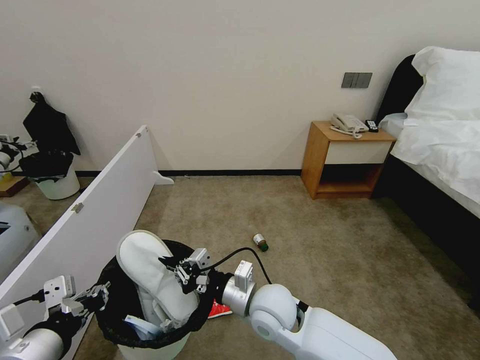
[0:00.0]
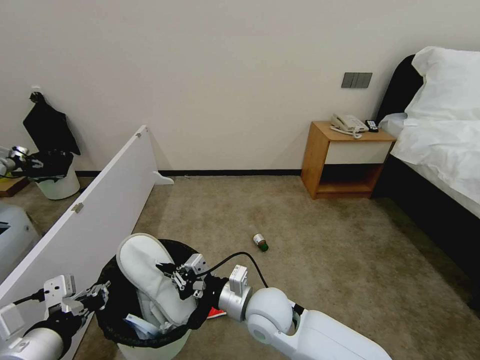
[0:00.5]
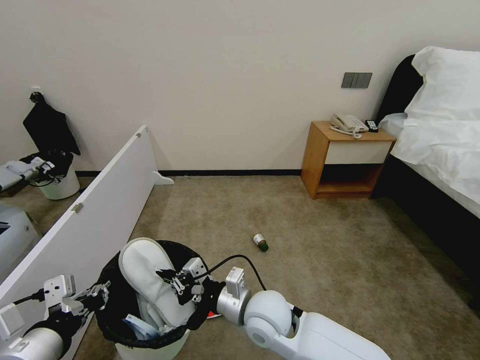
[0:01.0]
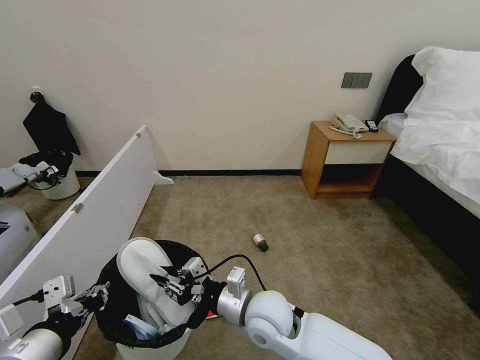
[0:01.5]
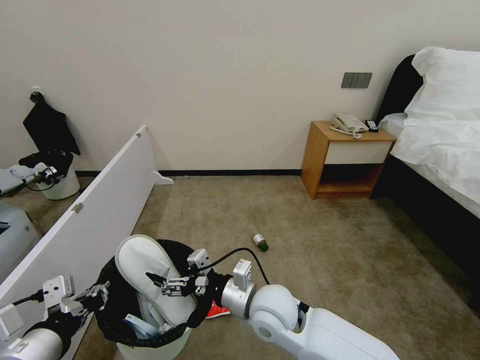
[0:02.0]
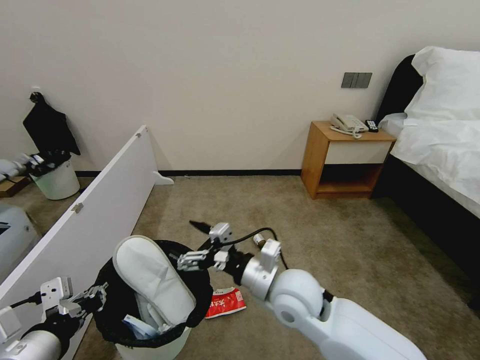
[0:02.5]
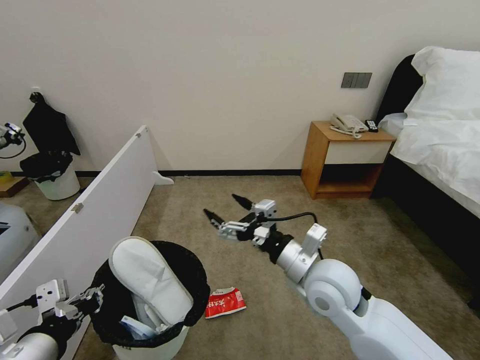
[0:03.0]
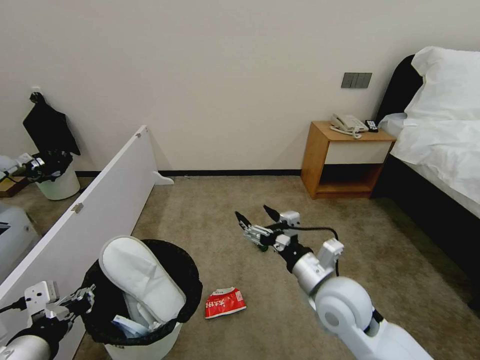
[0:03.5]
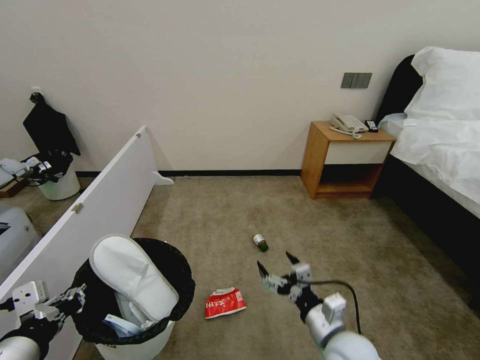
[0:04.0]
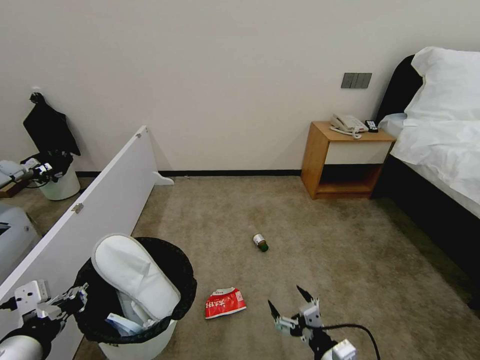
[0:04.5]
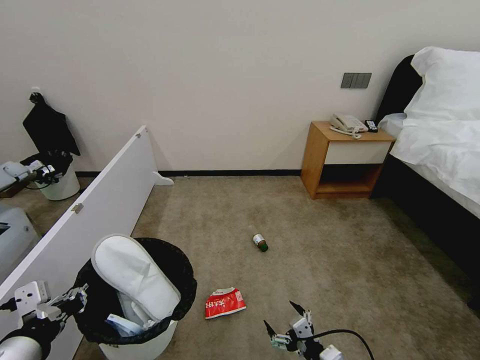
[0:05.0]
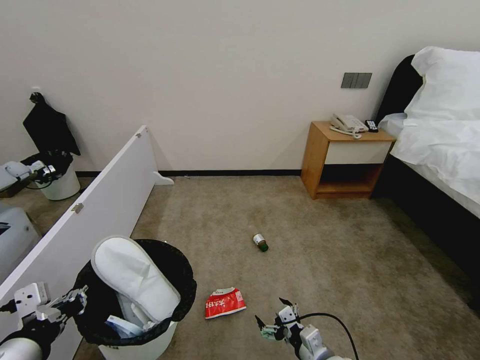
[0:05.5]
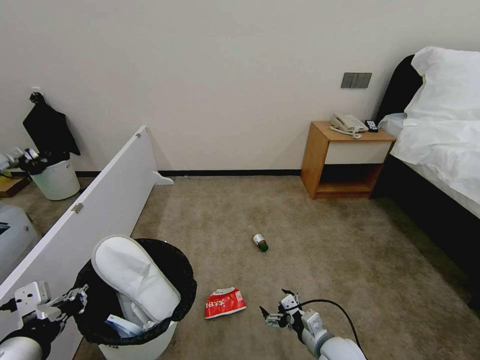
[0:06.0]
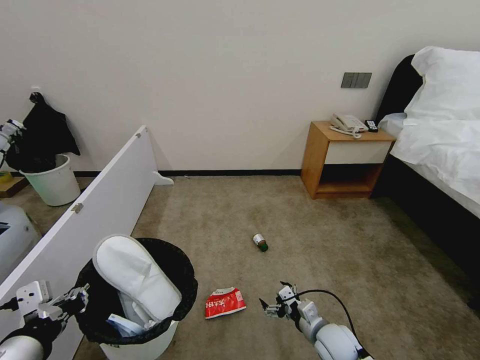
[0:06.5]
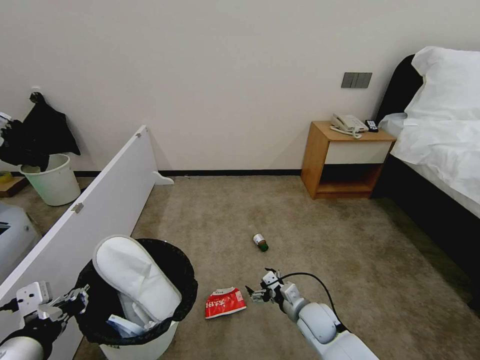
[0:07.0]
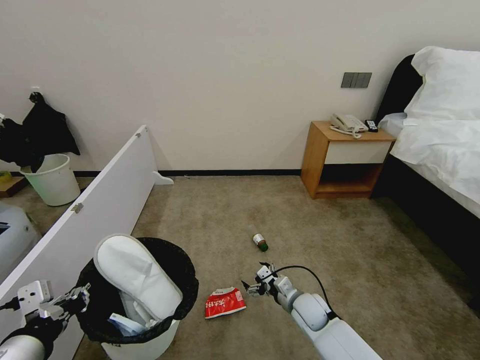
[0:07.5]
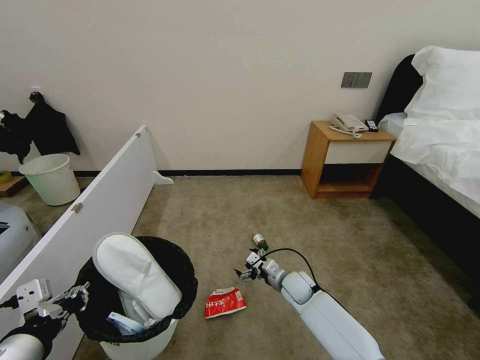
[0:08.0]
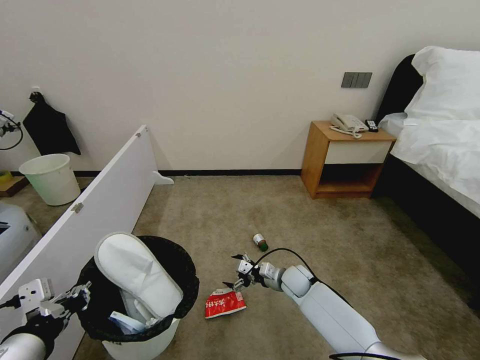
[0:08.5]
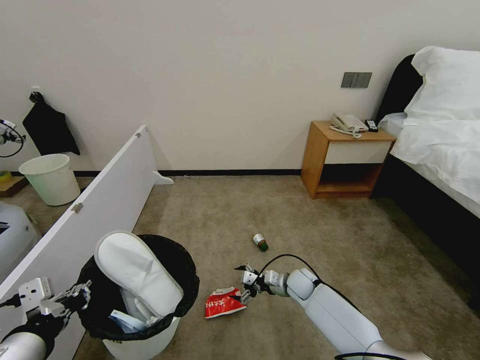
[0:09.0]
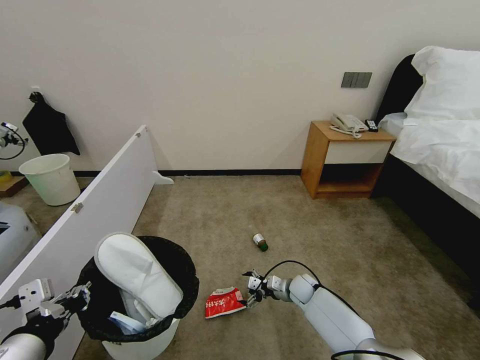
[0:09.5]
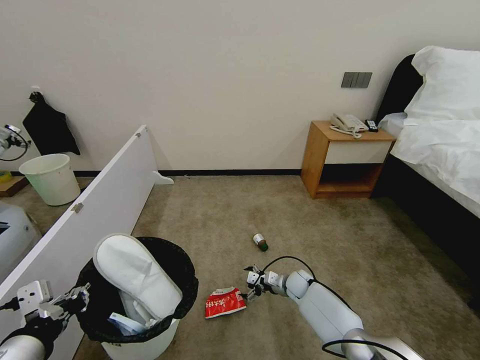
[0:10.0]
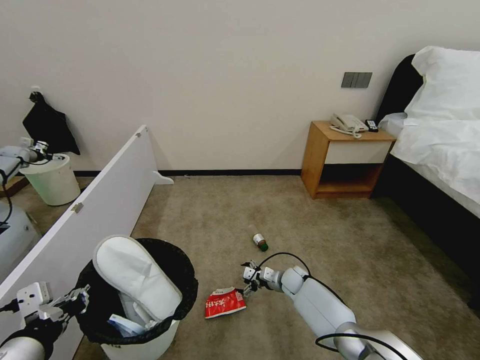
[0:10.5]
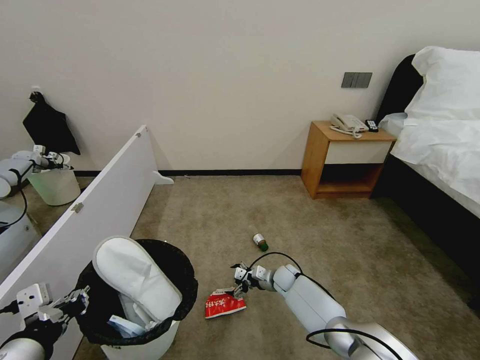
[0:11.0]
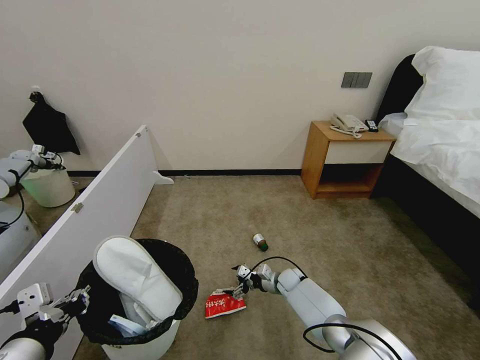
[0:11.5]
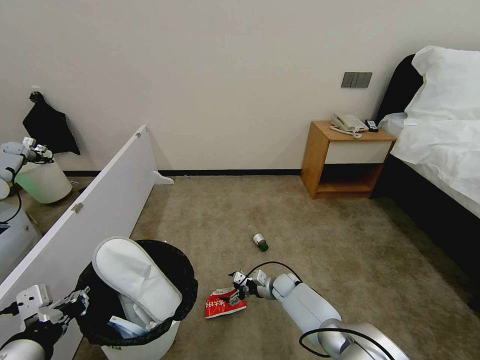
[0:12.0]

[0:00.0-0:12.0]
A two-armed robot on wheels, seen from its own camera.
Task of the whole recording: Pick up the trash bin, then pick up the garbage from the floor and place it into the trash bin.
0:00.0 to 0:02.0: The right gripper opens its fingers.
0:02.0 to 0:04.0: The right gripper is displaced to the right by some 15 cm.
0:04.0 to 0:06.0: The right gripper is displaced downward by about 10 cm.
0:06.0 to 0:08.0: The right gripper shifts some 15 cm forward.
0:08.0 to 0:10.0: The right gripper moves downward, about 5 cm.
0:10.0 to 0:12.0: The grippers move only a little.

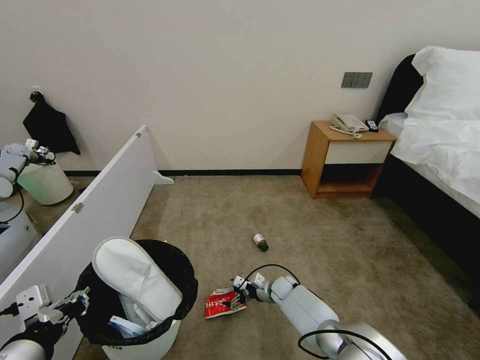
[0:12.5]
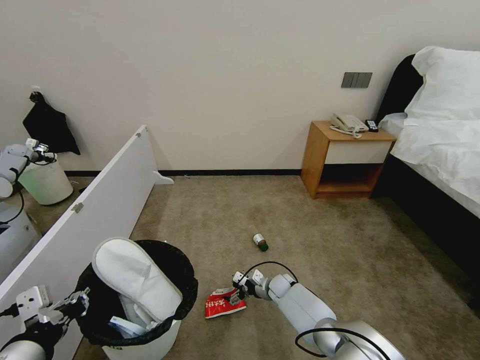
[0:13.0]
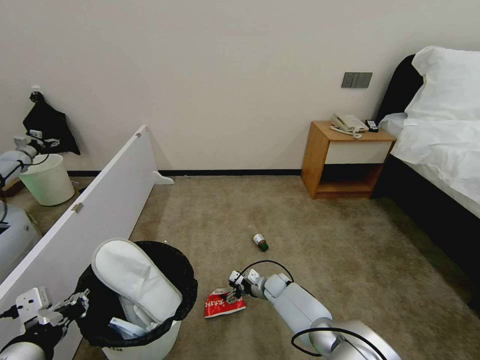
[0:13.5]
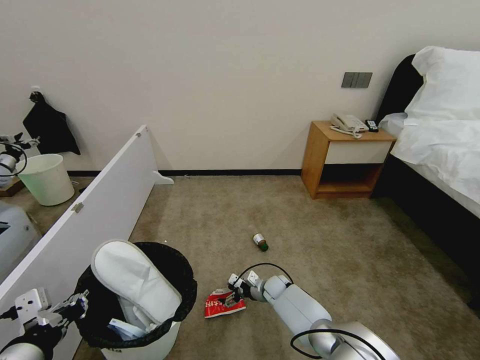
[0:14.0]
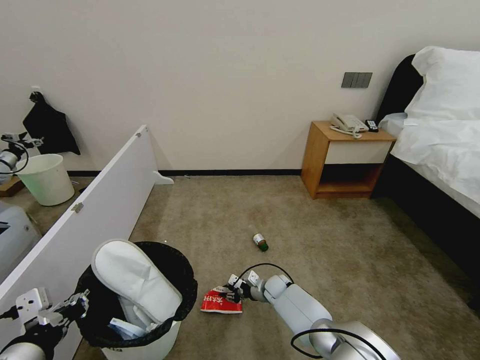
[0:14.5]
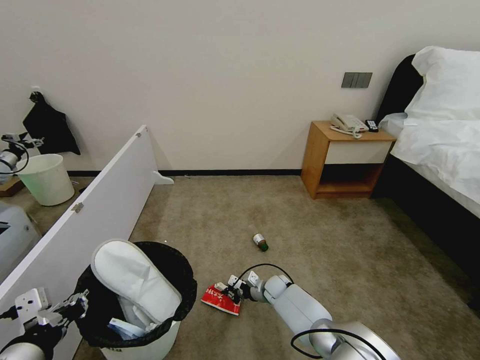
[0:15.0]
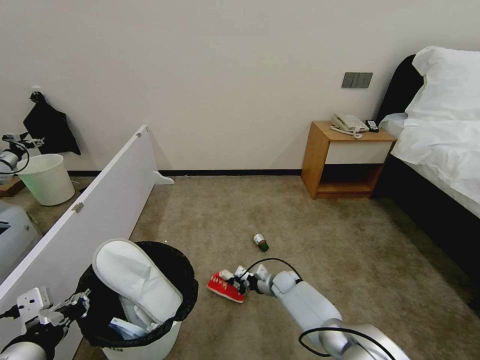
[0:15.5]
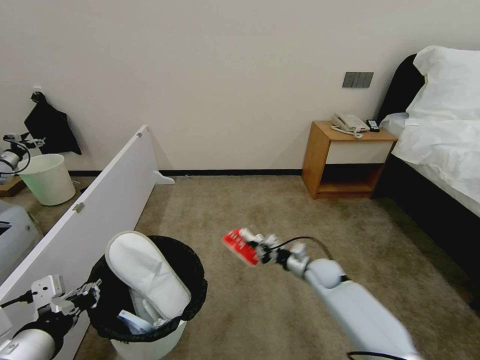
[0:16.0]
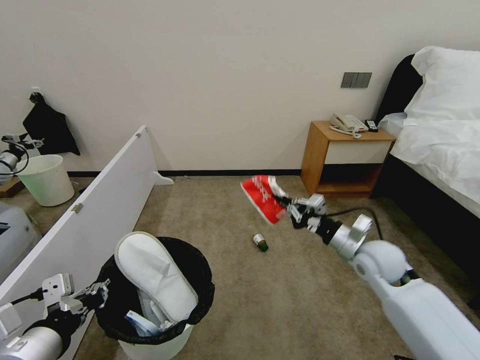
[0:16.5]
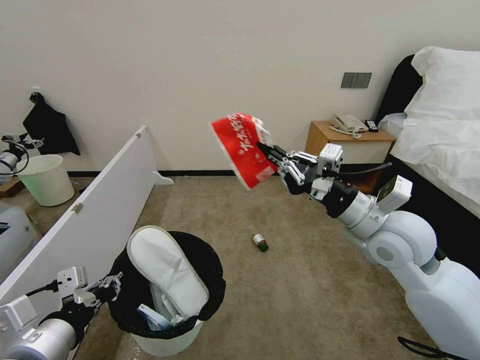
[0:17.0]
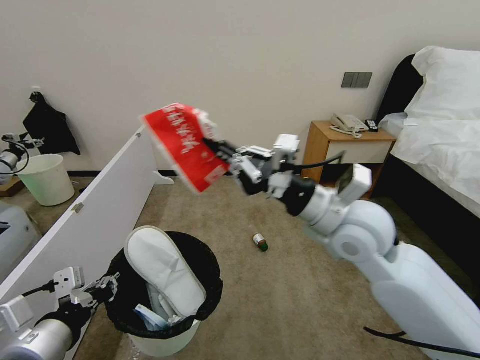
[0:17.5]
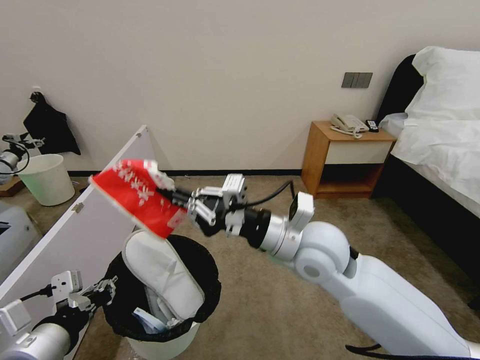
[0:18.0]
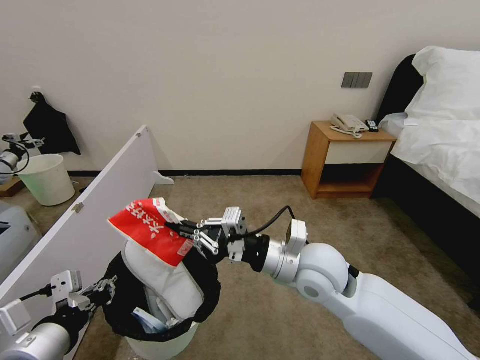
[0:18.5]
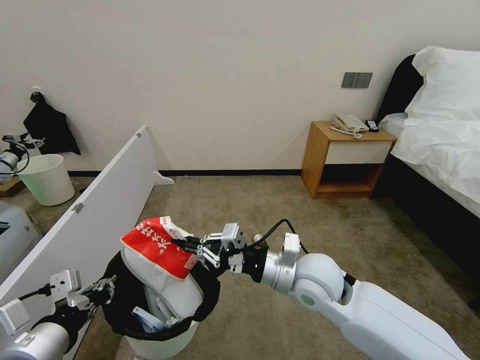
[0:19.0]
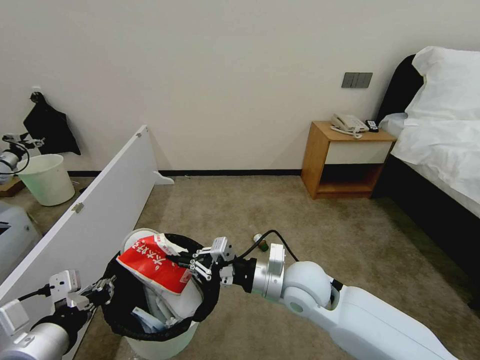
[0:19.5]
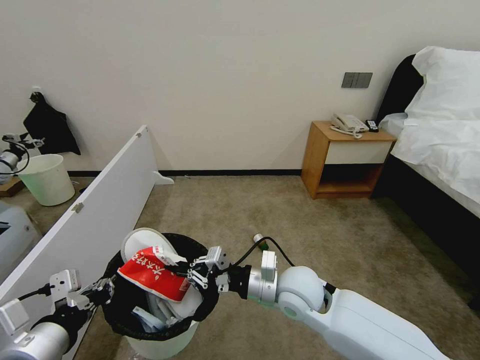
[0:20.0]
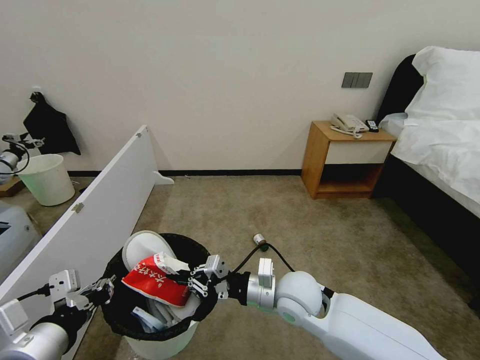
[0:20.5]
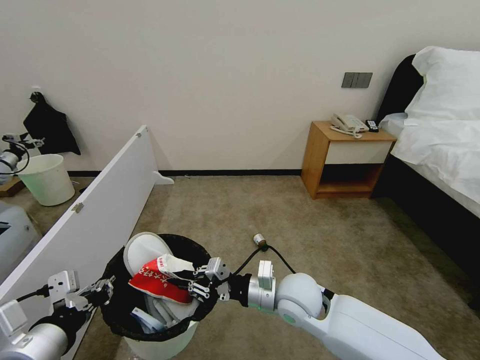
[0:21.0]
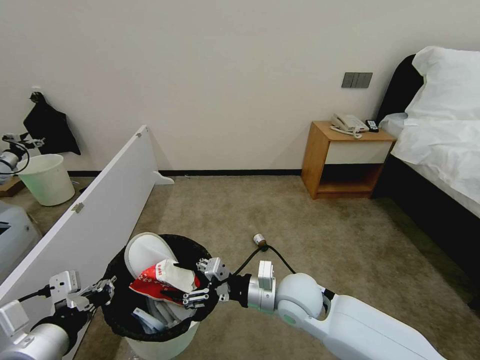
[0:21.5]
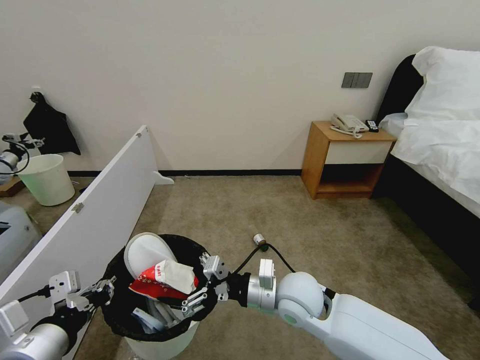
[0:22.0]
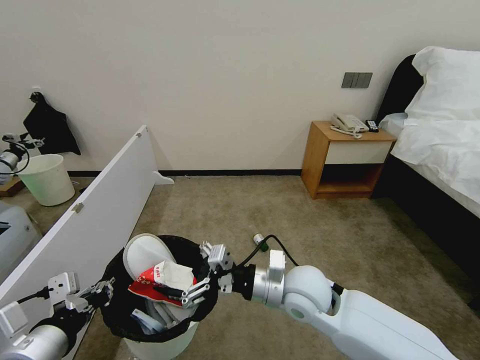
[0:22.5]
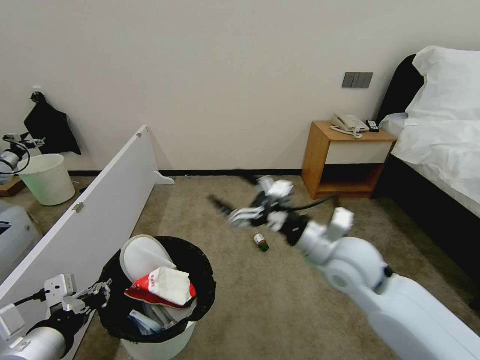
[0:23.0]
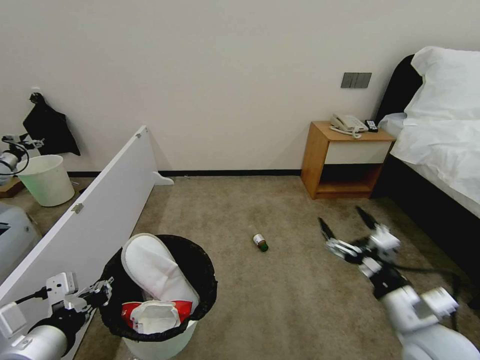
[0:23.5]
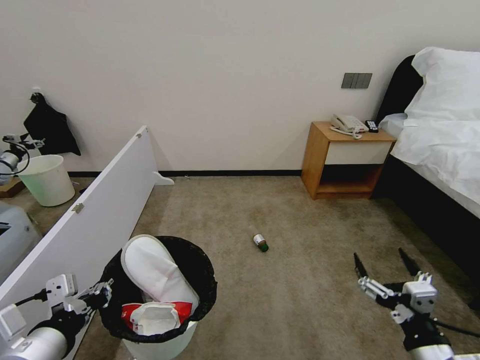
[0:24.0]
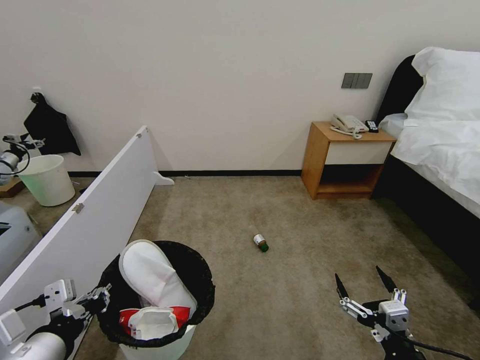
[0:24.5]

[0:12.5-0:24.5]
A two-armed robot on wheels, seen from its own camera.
Task of the whole recording: Pick up the trash bin, then pick up the garbage from the floor and place it into the trash bin.
0:12.5 to 0:14.5: The right gripper closes its fingers.
0:14.5 to 0:16.5: The right gripper moves upward and to the right, approximately 35 cm, and closes its fingers.
0:16.5 to 0:18.5: The right gripper travels to the left, upward and backward by about 20 cm.
0:18.5 to 0:20.5: The right gripper moves downward, some 10 cm.
0:20.5 to 0:22.5: The right gripper opens.
0:22.5 to 0:24.5: The right gripper is displaced backward, to the right and downward by approximately 30 cm.

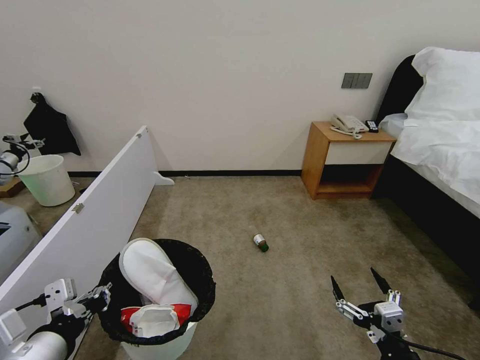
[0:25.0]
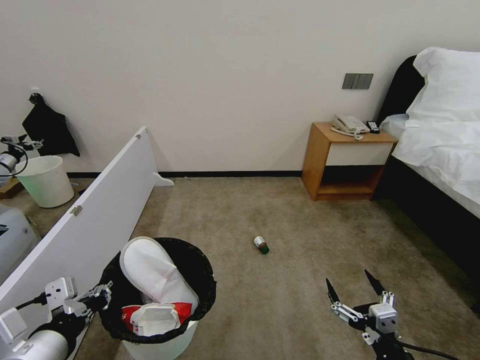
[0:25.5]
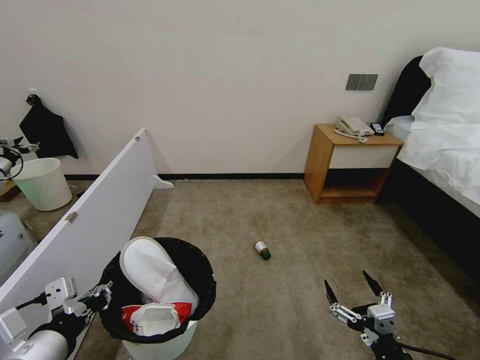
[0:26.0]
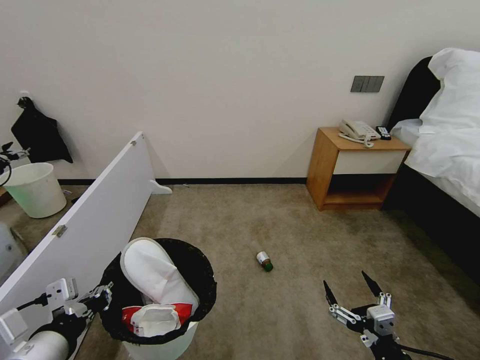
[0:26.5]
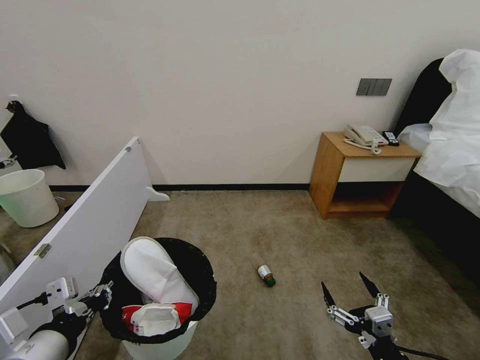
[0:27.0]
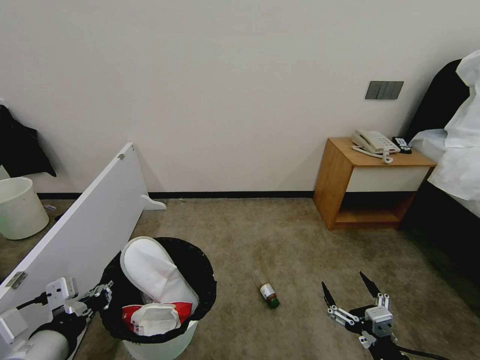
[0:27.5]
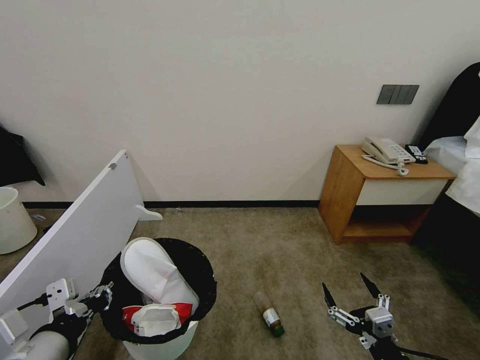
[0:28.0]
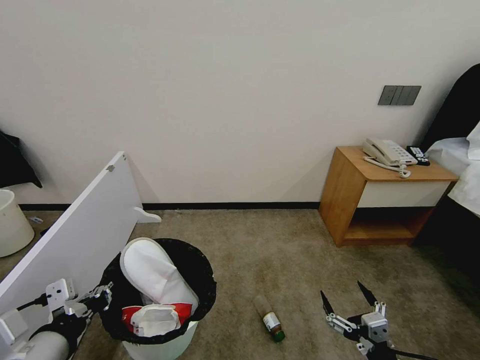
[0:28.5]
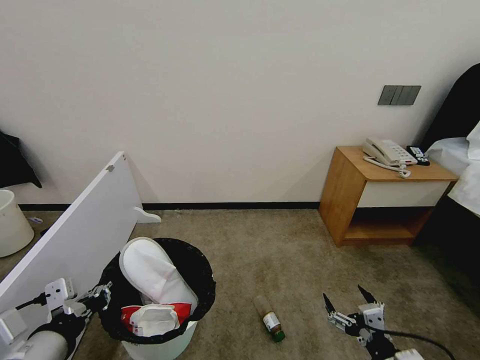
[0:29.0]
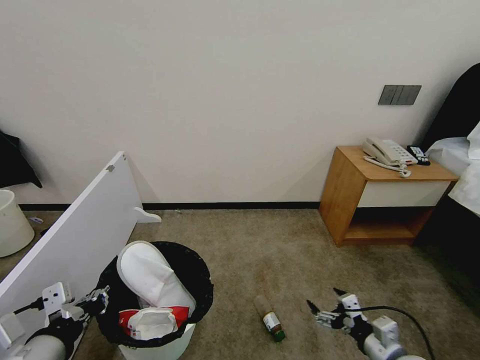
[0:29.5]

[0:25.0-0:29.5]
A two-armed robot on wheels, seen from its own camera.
Task of the whole recording: Pick up the trash bin, then pick up the garbage from the floor and place it into the trash bin.
0:27.0 to 0:29.5: The right gripper goes about 10 cm forward.
